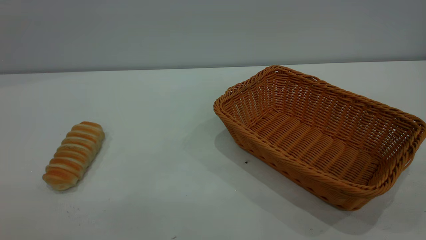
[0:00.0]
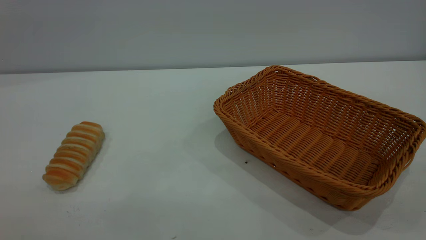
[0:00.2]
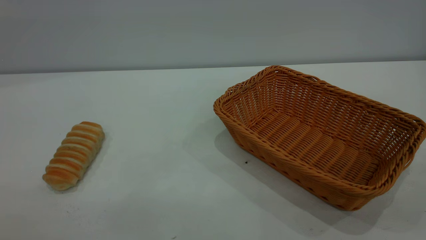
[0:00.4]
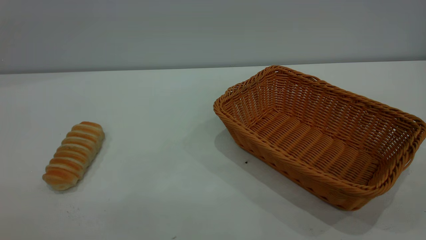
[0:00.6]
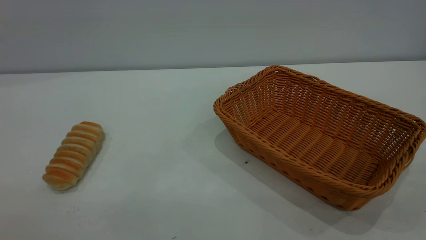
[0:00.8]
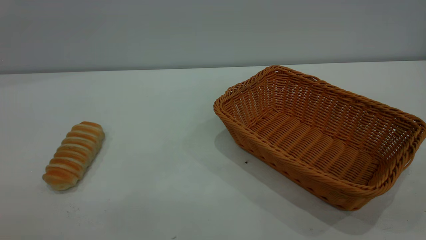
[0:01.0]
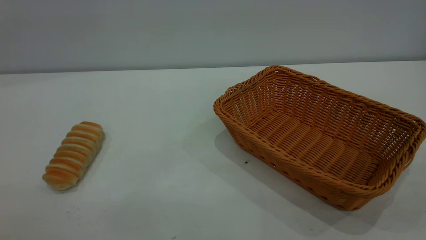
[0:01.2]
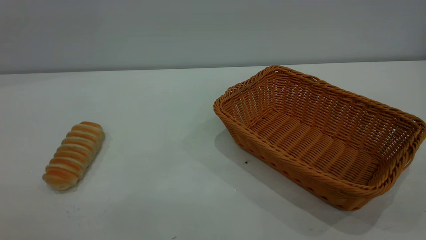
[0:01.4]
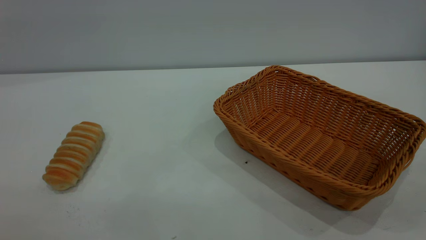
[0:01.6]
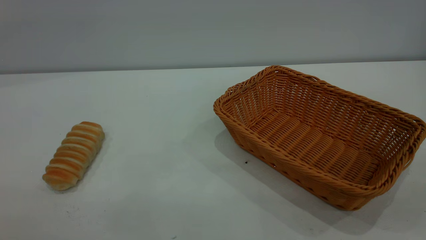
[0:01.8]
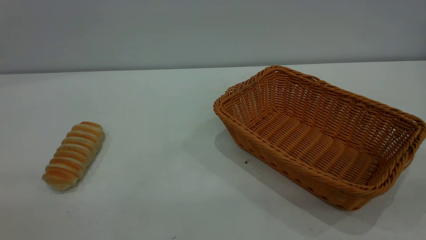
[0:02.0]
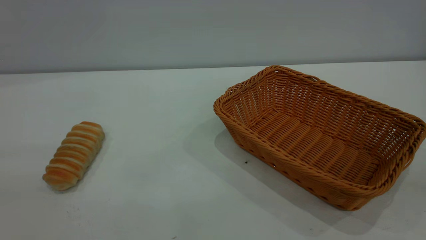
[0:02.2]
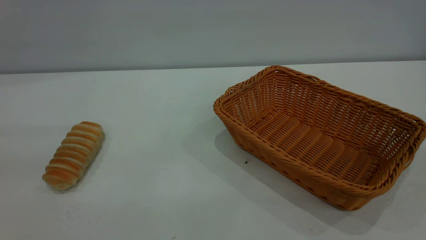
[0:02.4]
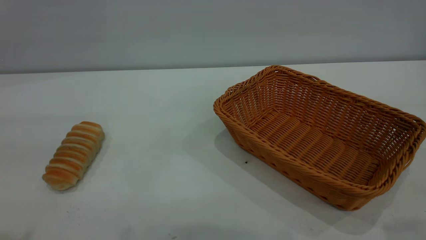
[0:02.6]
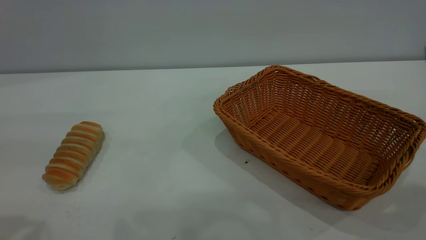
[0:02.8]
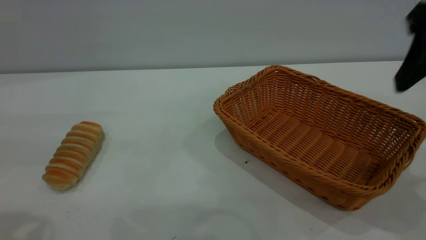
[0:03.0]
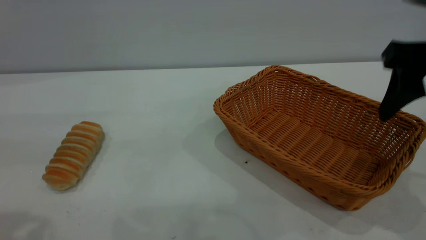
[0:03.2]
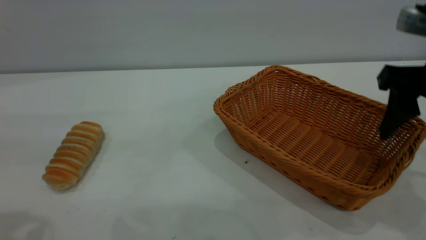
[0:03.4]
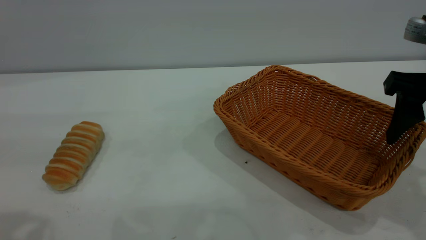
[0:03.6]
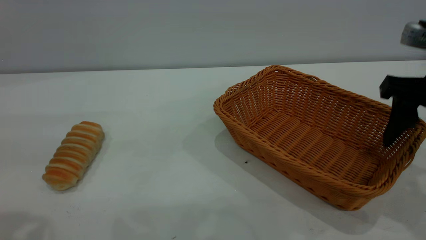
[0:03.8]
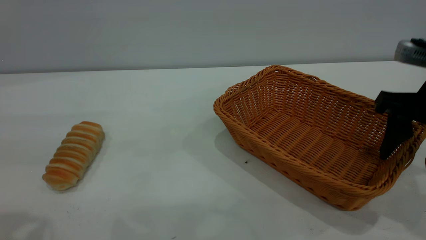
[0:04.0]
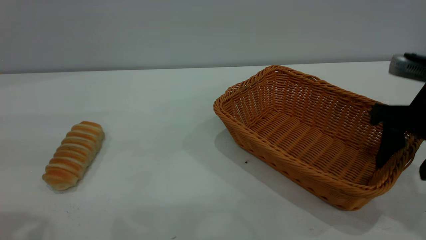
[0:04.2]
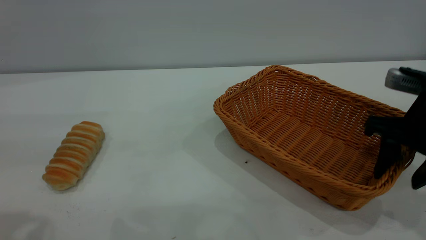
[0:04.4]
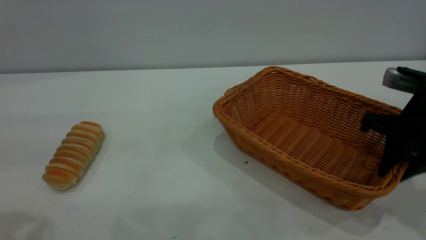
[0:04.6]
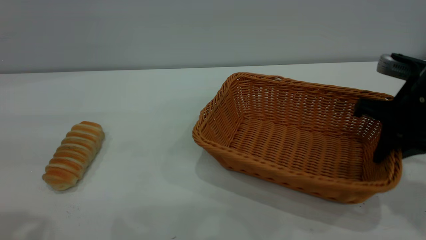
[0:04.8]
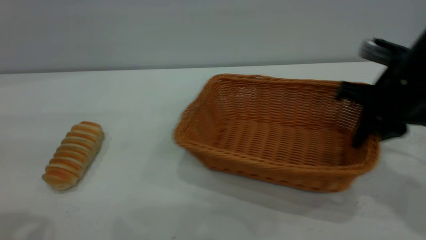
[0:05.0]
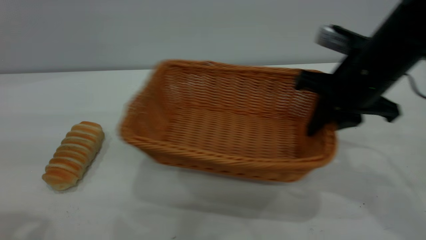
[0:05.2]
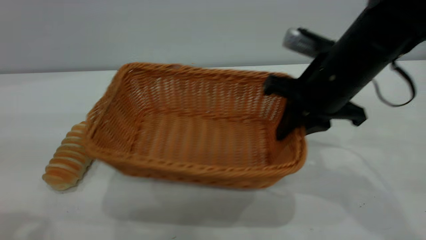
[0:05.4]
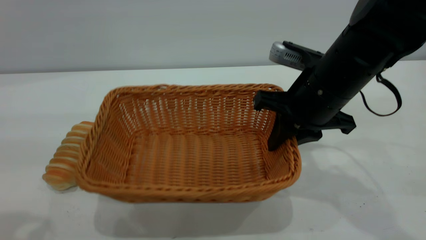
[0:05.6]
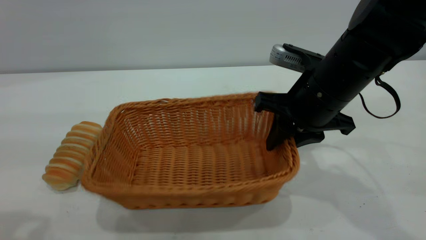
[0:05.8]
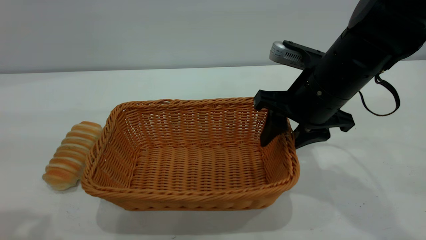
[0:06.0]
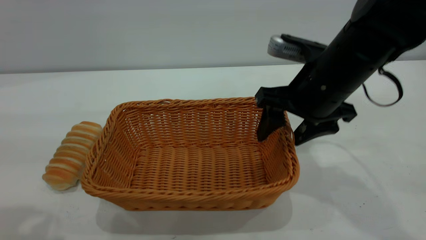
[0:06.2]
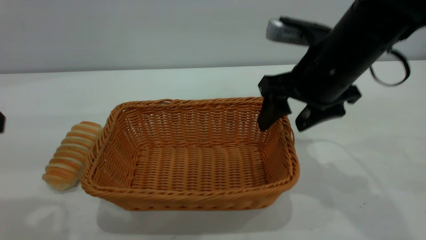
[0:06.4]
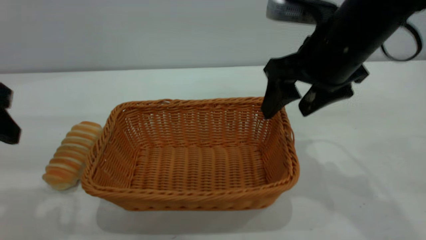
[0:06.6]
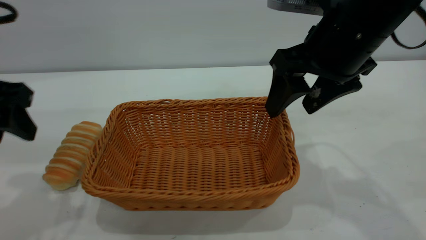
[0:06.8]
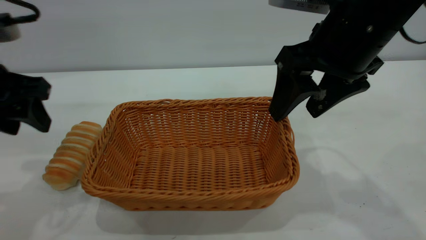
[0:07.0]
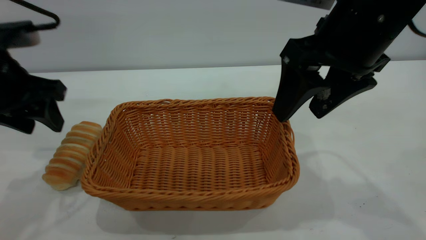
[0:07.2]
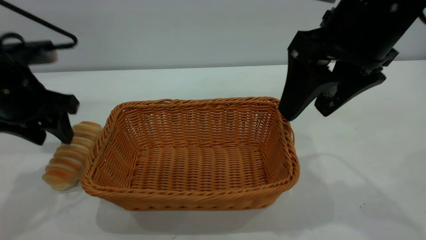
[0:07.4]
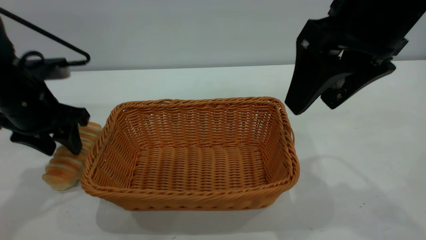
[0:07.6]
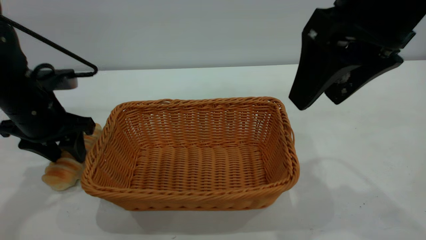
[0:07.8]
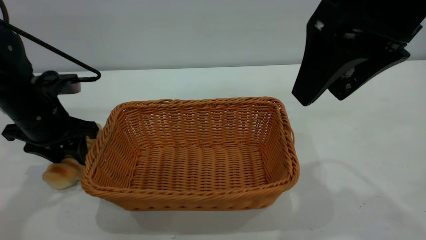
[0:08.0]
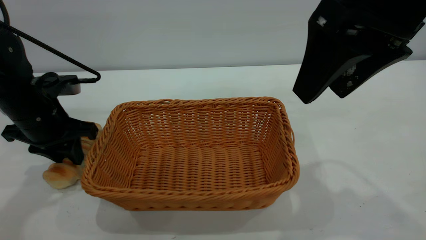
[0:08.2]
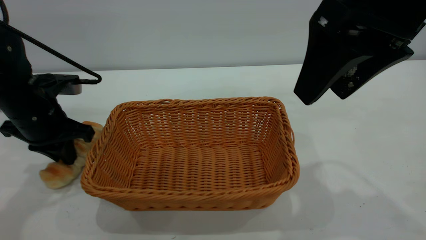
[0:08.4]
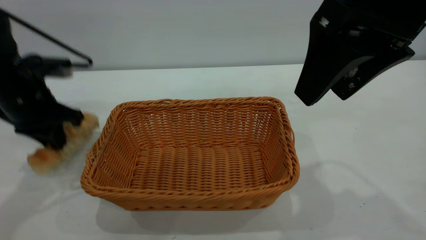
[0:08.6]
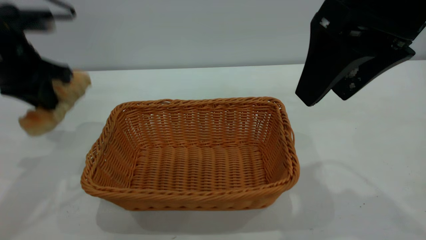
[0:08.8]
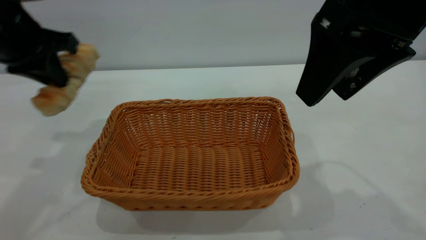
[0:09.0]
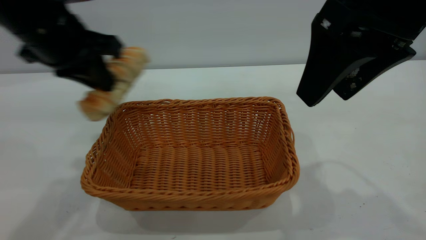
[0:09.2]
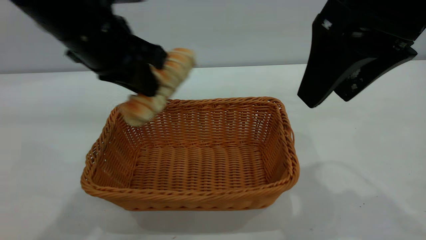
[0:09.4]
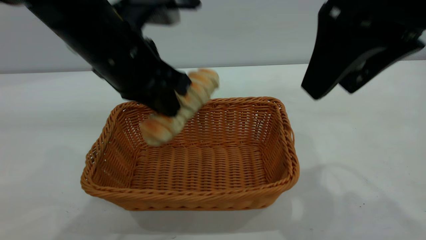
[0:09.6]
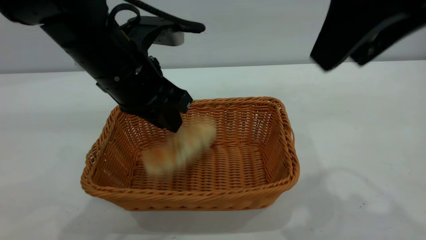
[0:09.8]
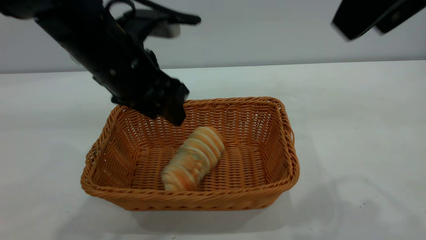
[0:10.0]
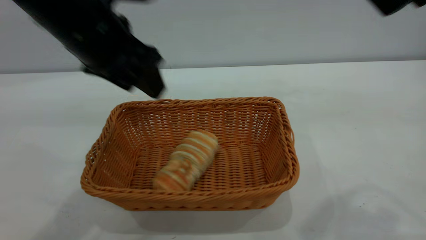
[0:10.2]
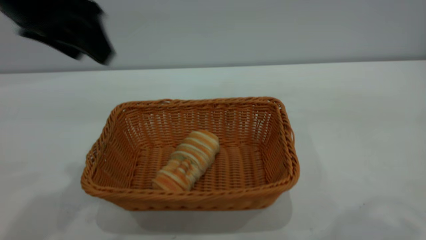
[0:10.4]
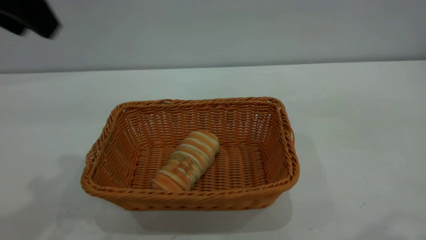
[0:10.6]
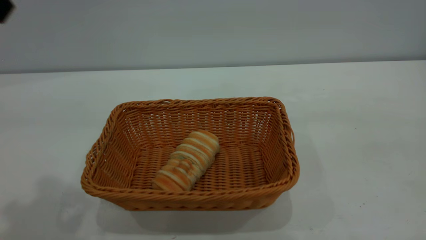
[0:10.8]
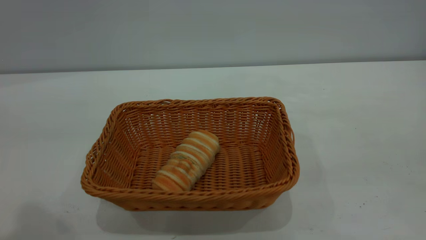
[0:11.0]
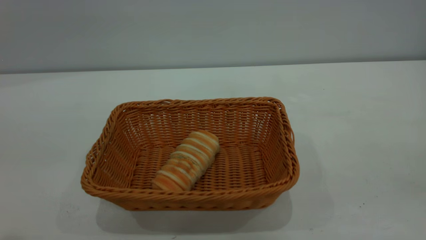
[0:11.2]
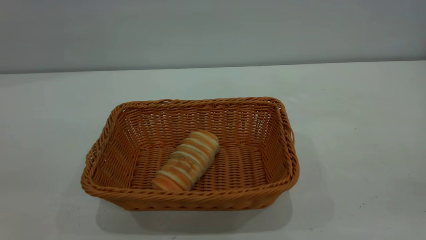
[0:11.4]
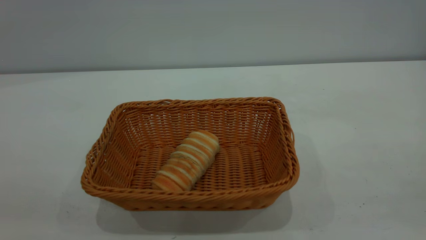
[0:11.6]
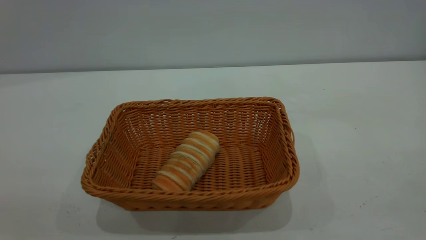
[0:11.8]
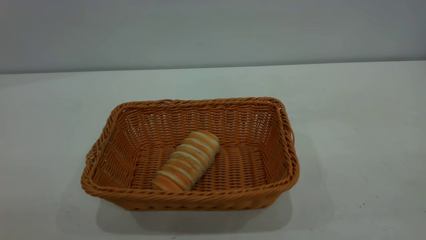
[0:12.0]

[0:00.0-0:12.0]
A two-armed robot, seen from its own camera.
Task of the whole recording: One hand grasps the yellow basket and places it in the middle of the table, while the other hand picks up the long bread and puts it into the yellow basket.
Step, 0:00.0 to 0:07.4: Move the basket to the center of view.
Step, 0:08.8 to 0:10.2: place the bread into the basket.
0:00.0 to 0:01.6: Both grippers stay about where they are.
0:01.6 to 0:03.0: The right gripper travels forward by about 25 cm.
0:03.0 to 0:04.4: The right gripper heads downward, covering about 15 cm.
0:04.4 to 0:06.0: The right gripper goes about 10 cm to the left, and closes, then reopens.
0:06.0 to 0:07.6: The right gripper shifts some 15 cm upward and backward. Meanwhile the left gripper moves forward and downward, about 25 cm.
0:07.6 to 0:09.0: The left gripper travels upward by approximately 10 cm, and closes its fingers.
0:09.0 to 0:10.4: The right gripper moves upward and backward, approximately 15 cm. The left gripper is displaced upward by approximately 5 cm, travels to the right and back again, some 15 cm each way, and opens.
0:10.4 to 0:12.0: The left gripper heads backward, covering about 30 cm.
